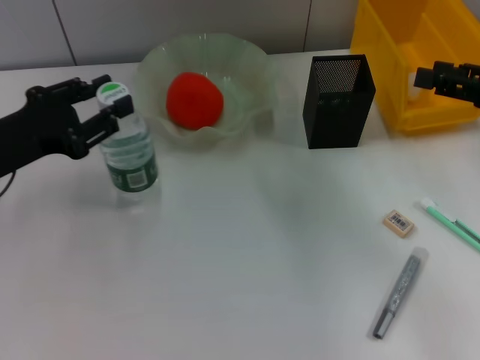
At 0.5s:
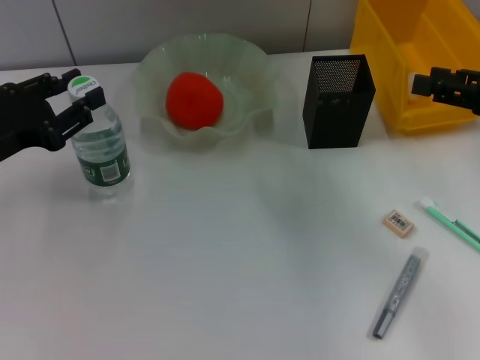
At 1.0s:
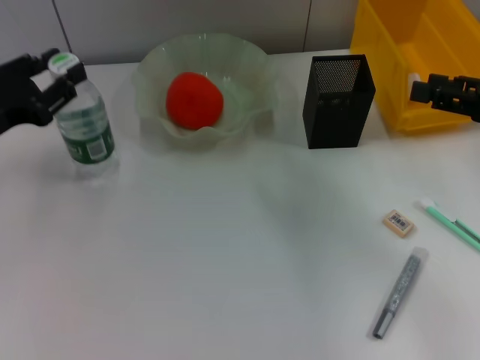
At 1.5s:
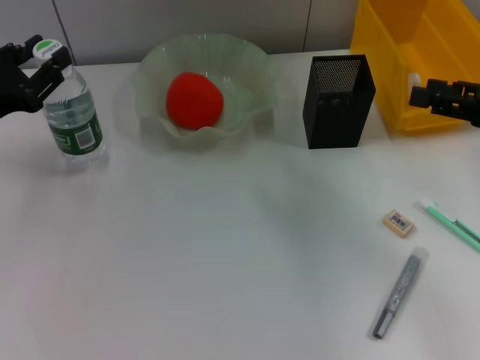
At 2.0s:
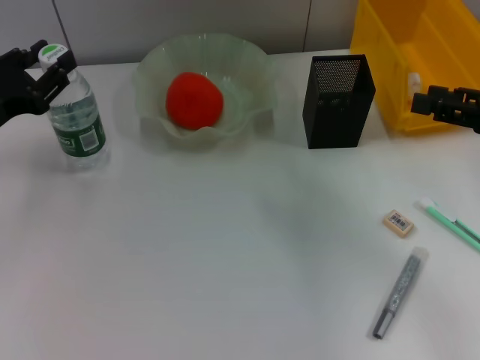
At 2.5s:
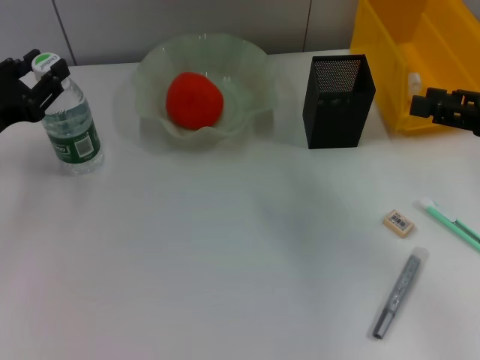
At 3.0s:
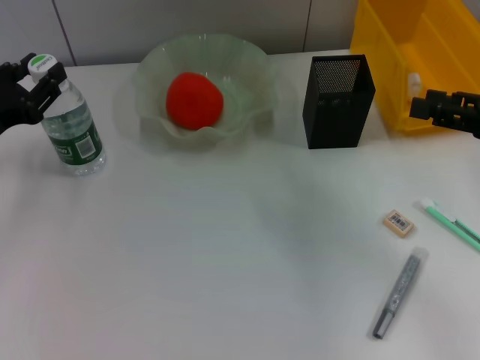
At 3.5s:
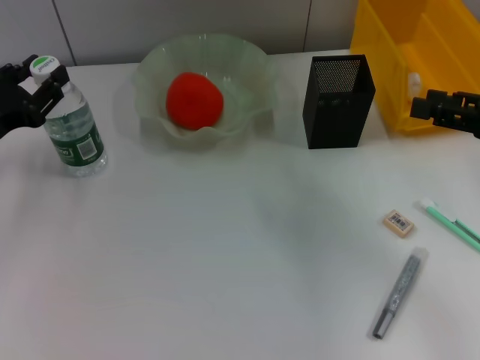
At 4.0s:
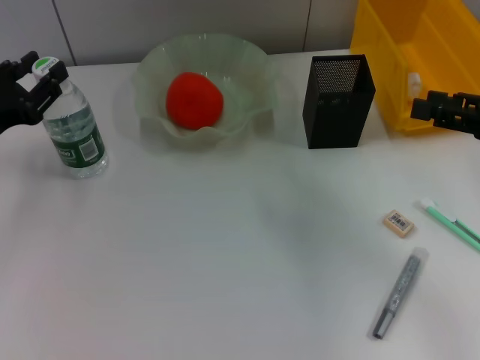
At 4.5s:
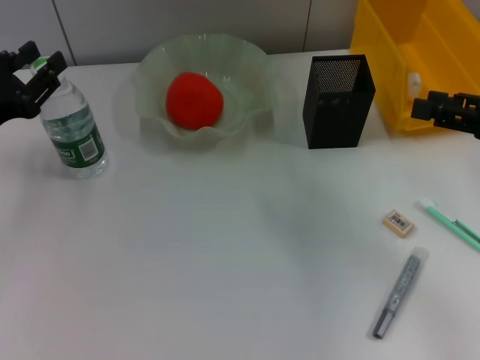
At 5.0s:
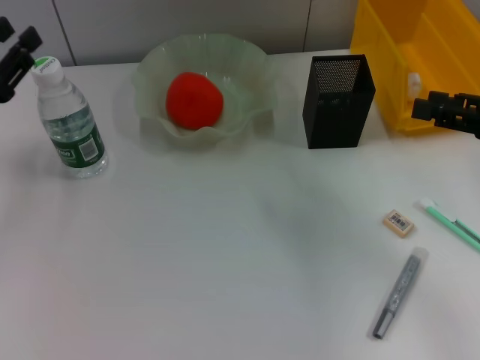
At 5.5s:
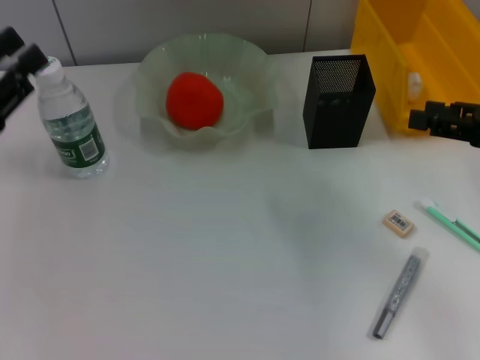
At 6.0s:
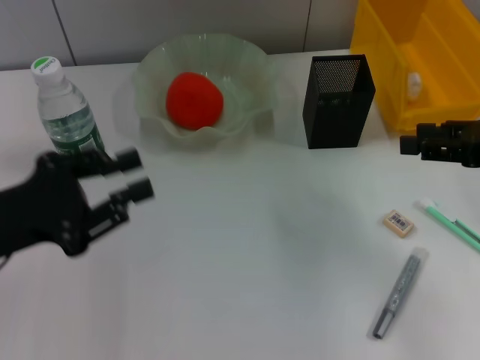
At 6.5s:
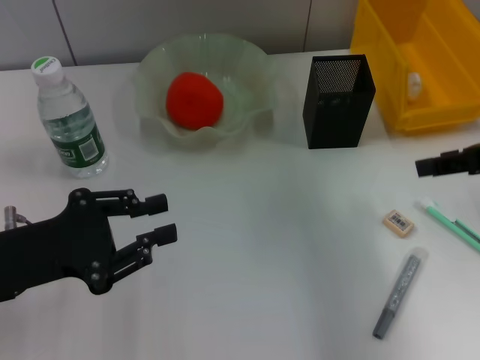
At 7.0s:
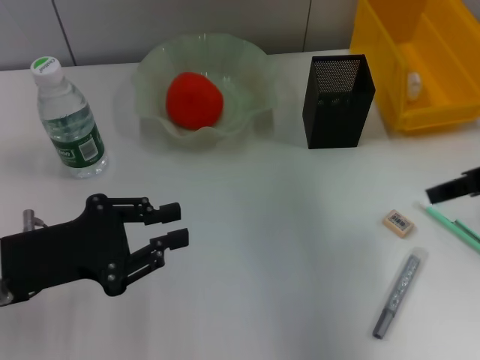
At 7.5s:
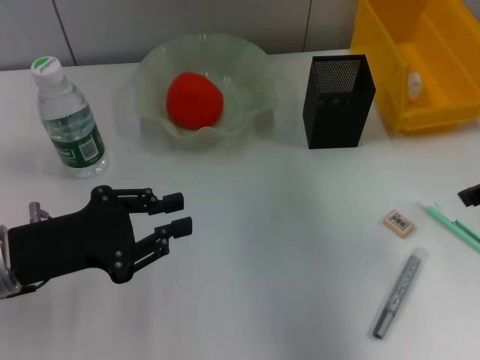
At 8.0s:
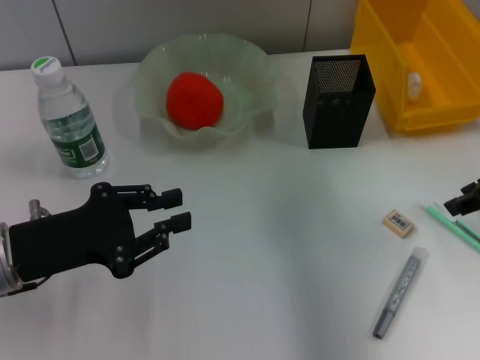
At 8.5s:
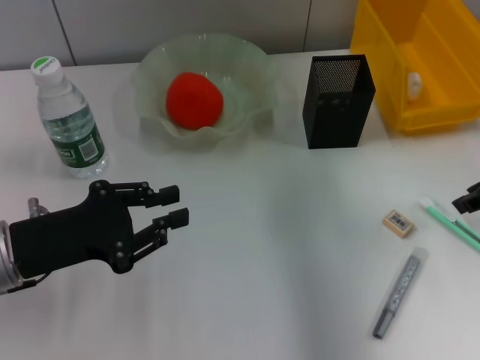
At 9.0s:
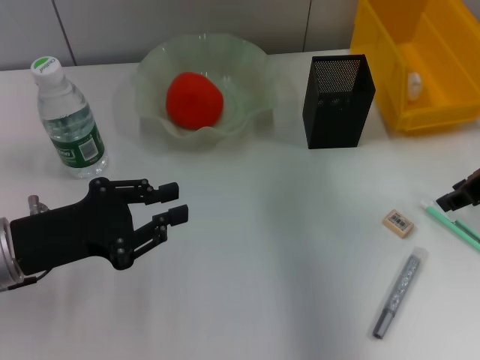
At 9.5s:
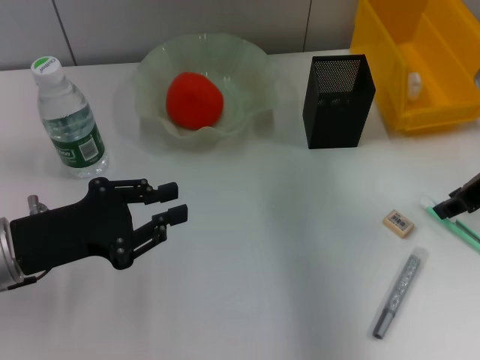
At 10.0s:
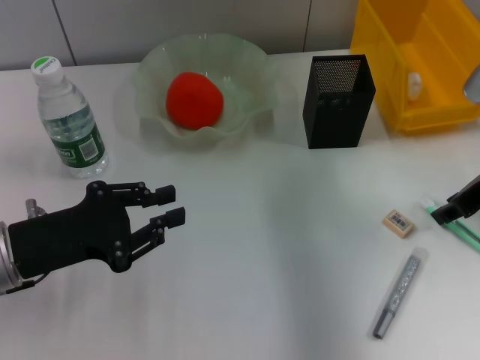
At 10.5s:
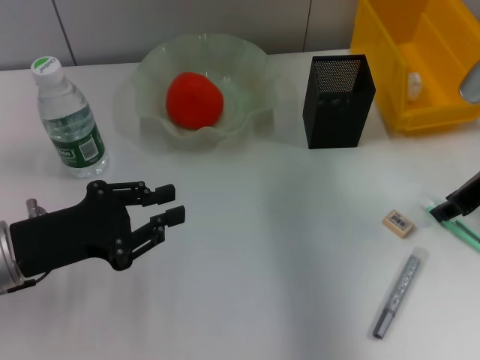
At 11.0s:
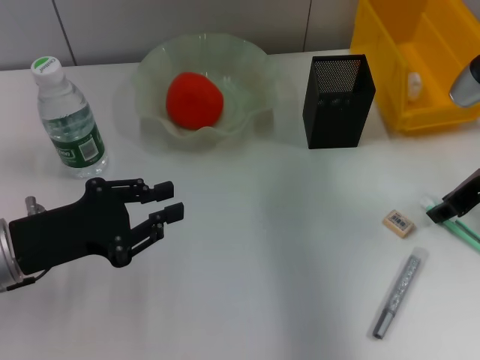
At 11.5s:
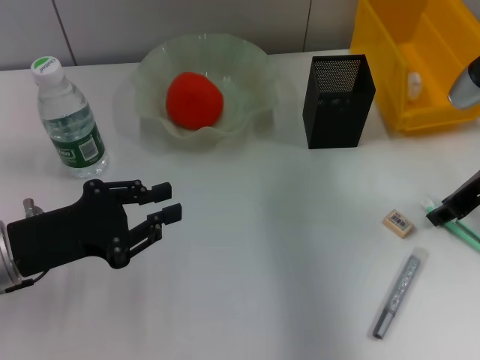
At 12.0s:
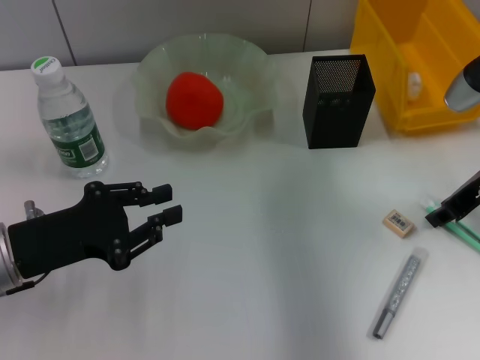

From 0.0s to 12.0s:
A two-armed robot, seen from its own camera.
Step, from 0.0s to 4.5s: Place the water bottle on the table with the left hand.
From 0.0s to 2.0s: There are only small adjustments of the grippers.
From 2.0s to 4.0s: There are only small adjustments of the grippers.
From 4.0s to 6.0s: The left gripper is displaced backward by about 10 cm.
From 6.0s to 8.0s: The left gripper closes its fingers.
From 8.0s to 12.0s: The grippers stay close to where they were, moving slightly.

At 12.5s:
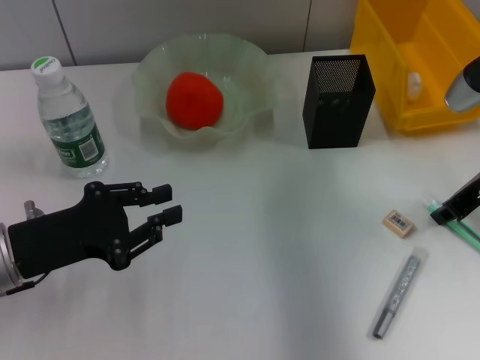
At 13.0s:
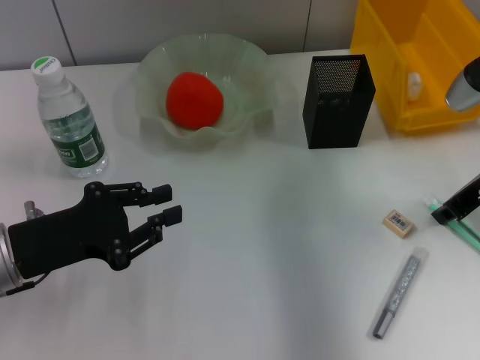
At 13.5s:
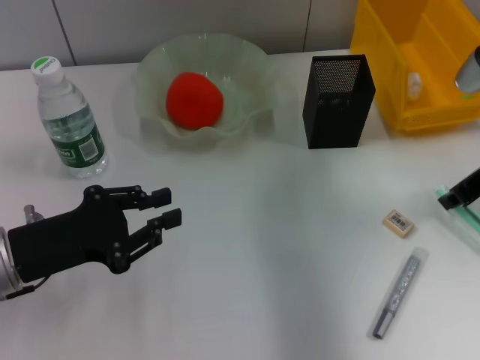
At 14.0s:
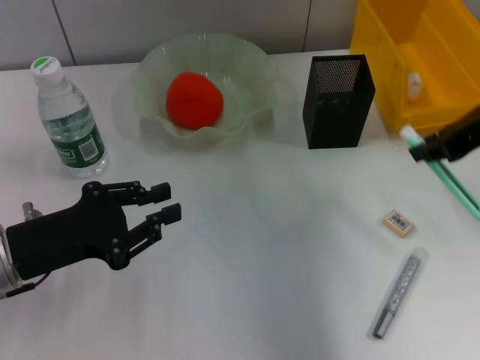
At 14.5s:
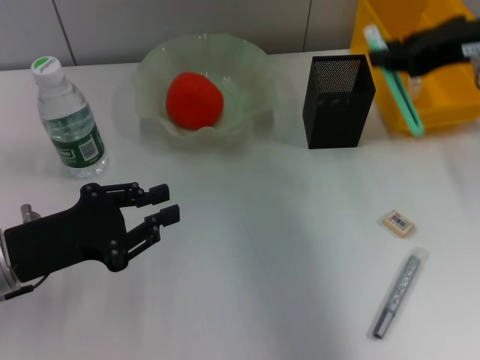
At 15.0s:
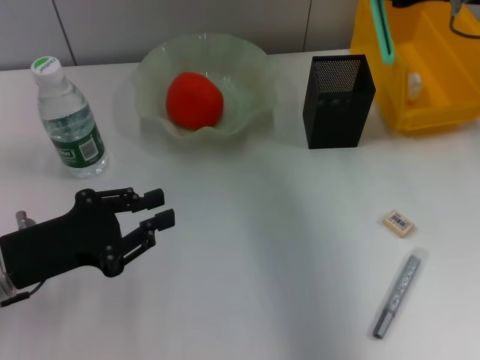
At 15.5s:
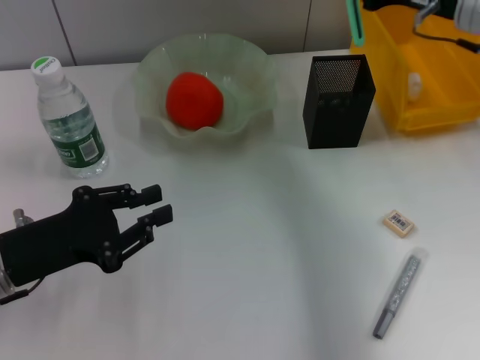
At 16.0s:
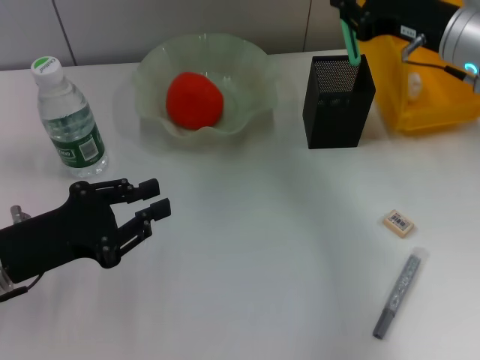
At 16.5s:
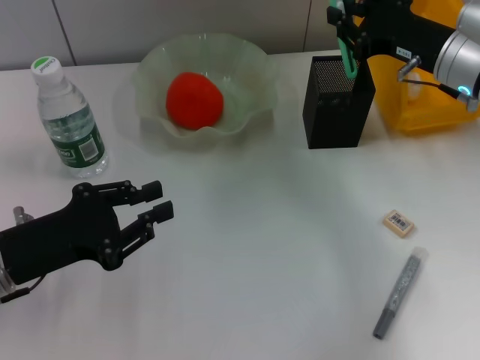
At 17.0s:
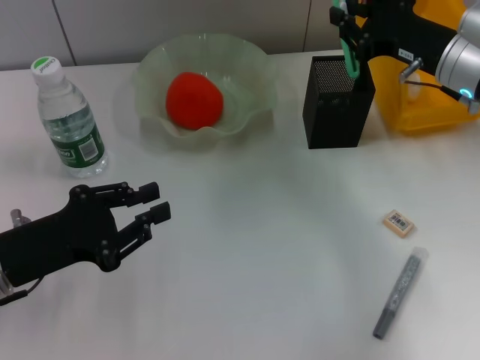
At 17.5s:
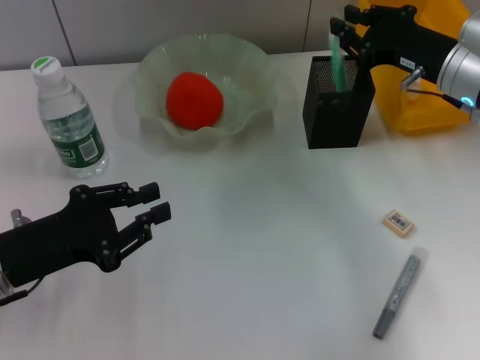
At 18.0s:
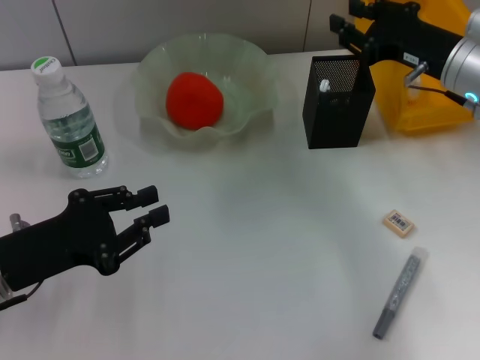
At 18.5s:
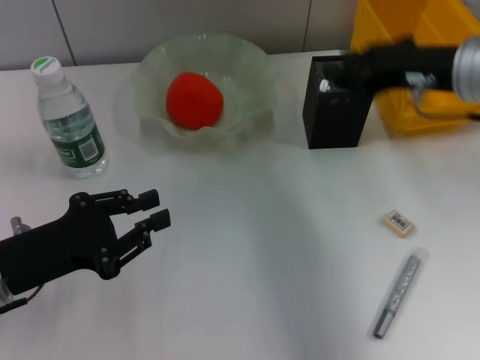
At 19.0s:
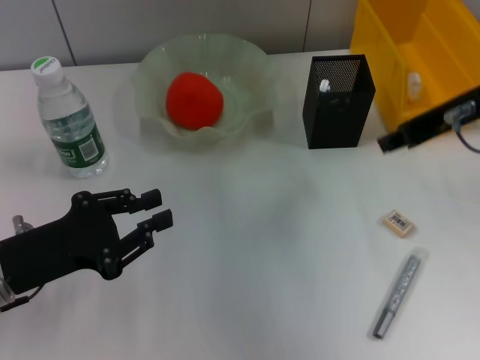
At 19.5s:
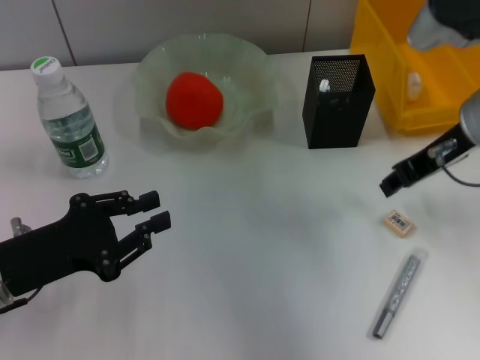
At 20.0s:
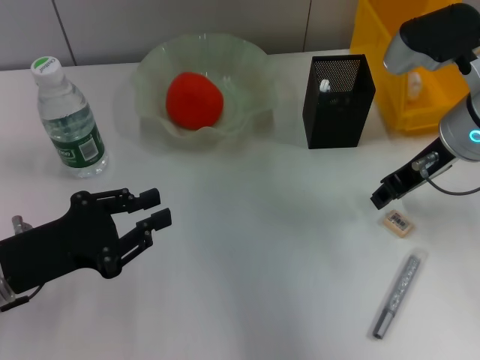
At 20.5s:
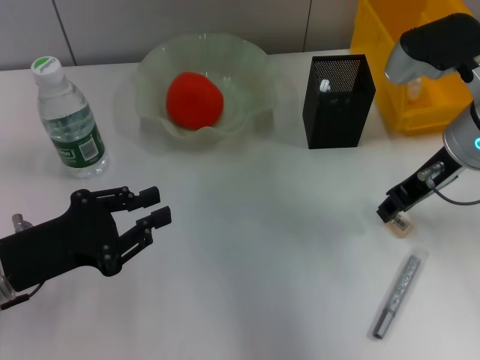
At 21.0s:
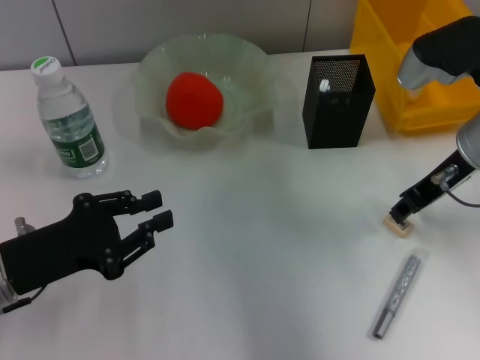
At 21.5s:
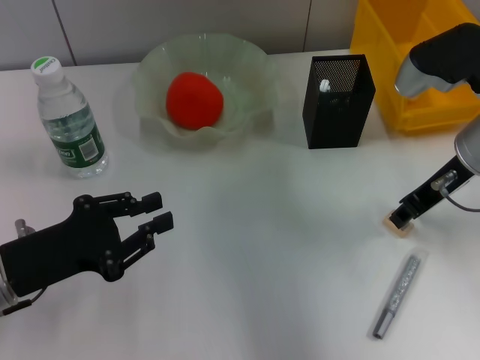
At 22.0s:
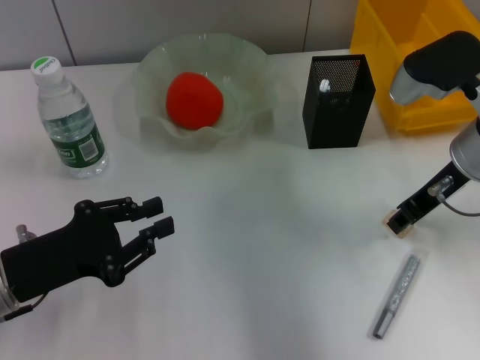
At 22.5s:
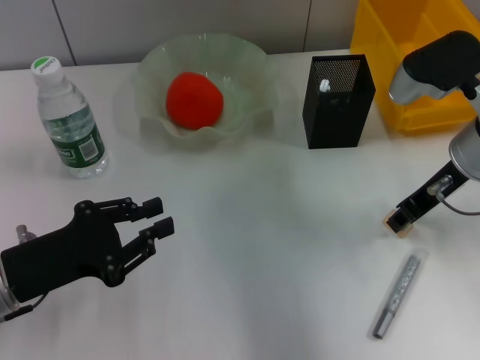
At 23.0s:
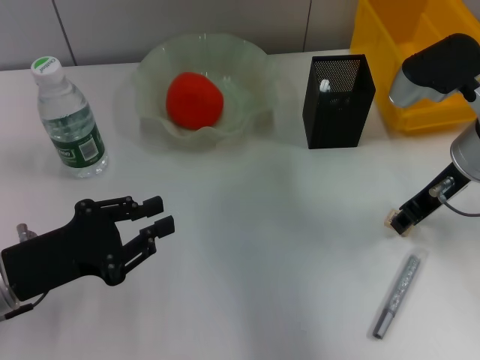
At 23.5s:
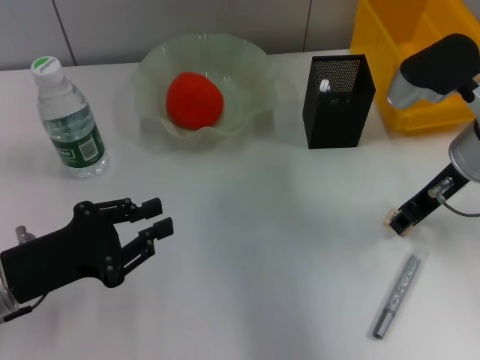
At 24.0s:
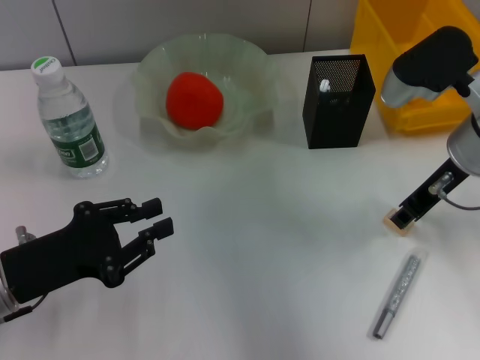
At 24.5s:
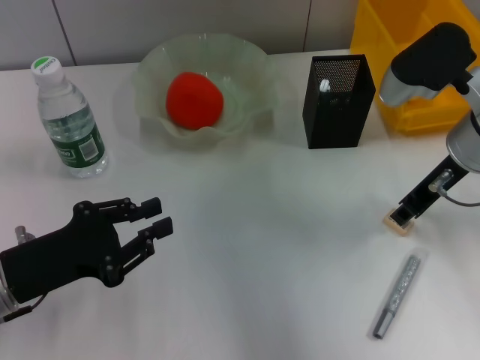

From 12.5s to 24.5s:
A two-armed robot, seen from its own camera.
Step, from 13.0s to 17.5s: Place the blue utility knife into the pen holder with the right hand.
From 12.5s to 14.5s: The right gripper moves upward, about 10 cm.
From 14.5s to 16.5s: The right gripper shifts approximately 10 cm downward and forward.
From 16.5s to 18.5s: The right gripper travels upward by about 5 cm.
From 20.5s to 24.5s: The grippers move only a little.

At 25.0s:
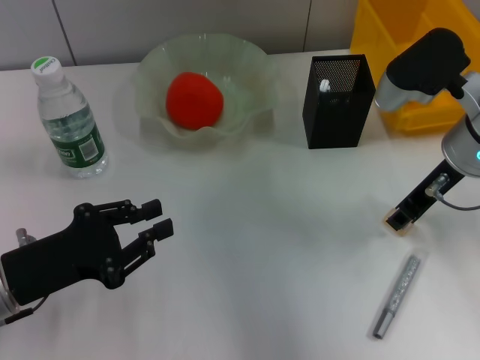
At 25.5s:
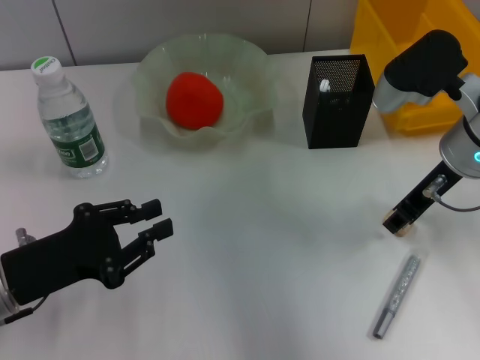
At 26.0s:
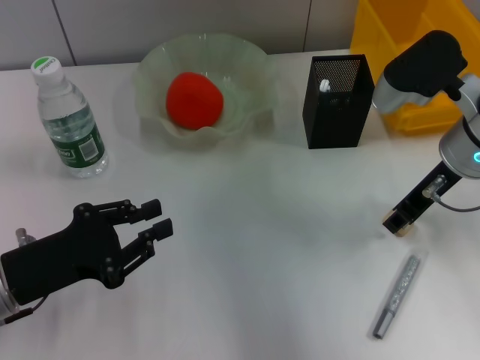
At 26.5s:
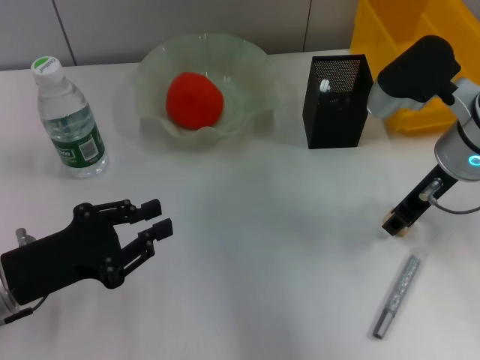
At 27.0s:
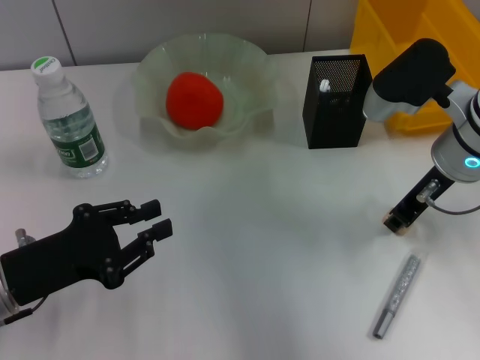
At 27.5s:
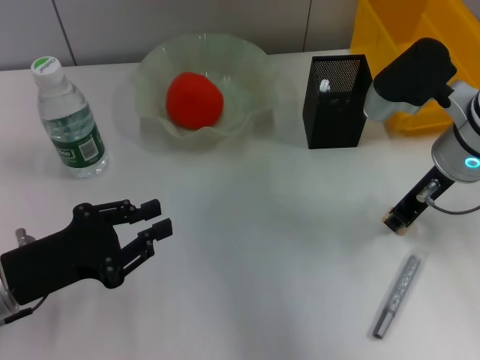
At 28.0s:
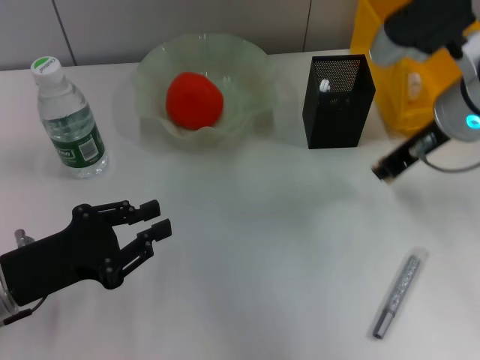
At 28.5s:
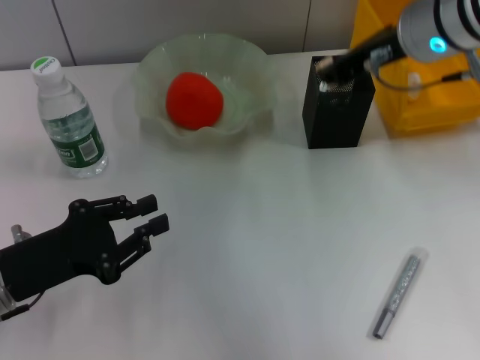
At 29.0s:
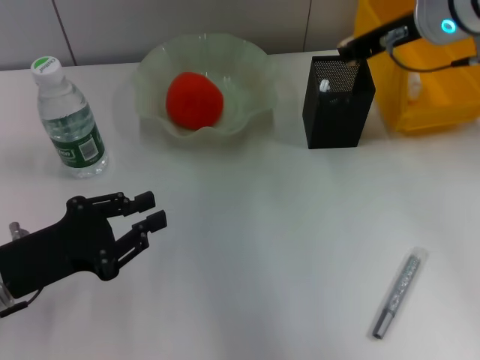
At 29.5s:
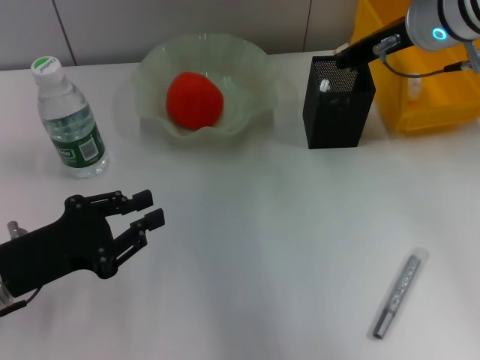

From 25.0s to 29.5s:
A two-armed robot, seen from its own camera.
Step, from 25.0s to 27.0s: Grab the eraser with the right hand.
From 25.0s to 27.0s: Both grippers stay about where they are.
From 27.0s to 29.5s: The right gripper goes approximately 10 cm upward and forward.
